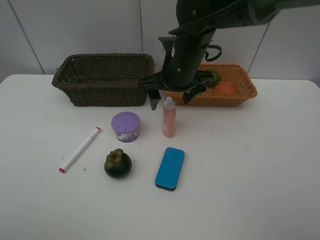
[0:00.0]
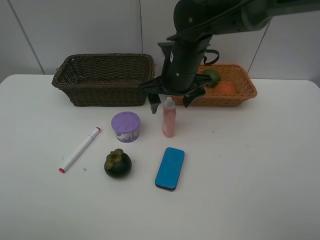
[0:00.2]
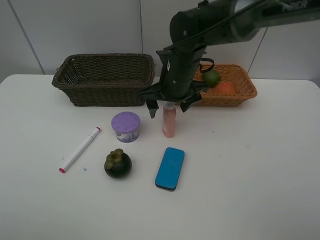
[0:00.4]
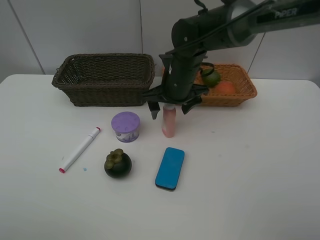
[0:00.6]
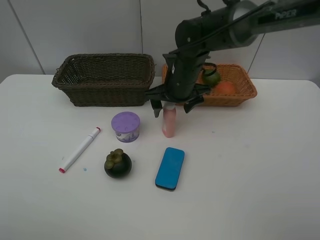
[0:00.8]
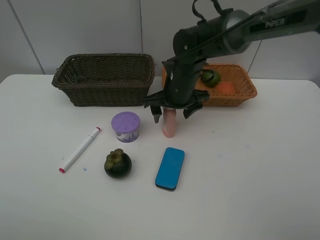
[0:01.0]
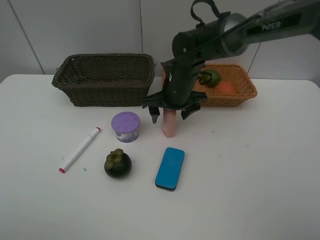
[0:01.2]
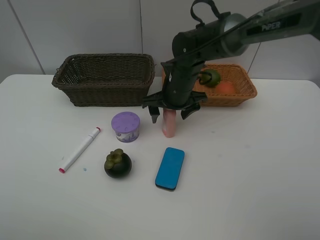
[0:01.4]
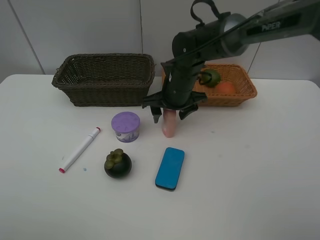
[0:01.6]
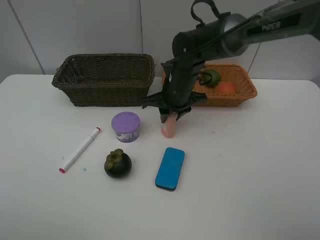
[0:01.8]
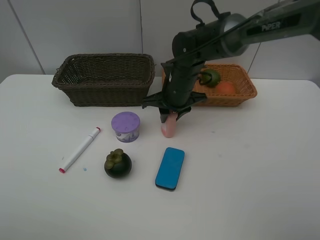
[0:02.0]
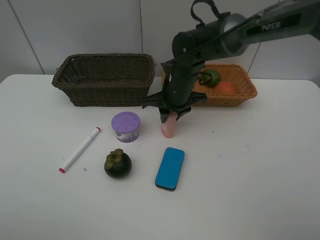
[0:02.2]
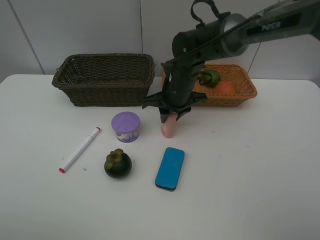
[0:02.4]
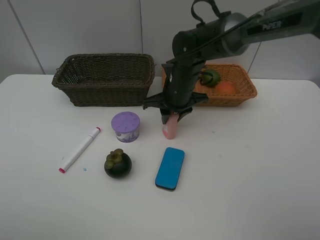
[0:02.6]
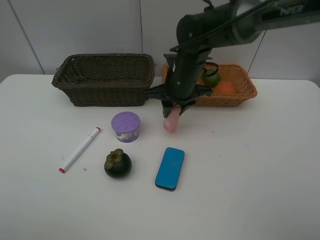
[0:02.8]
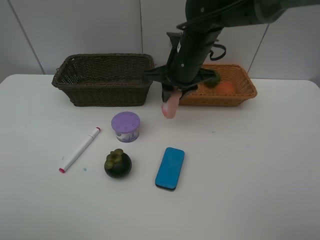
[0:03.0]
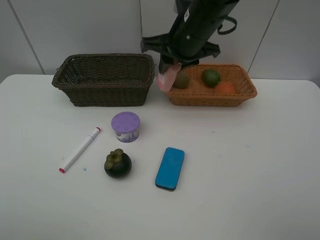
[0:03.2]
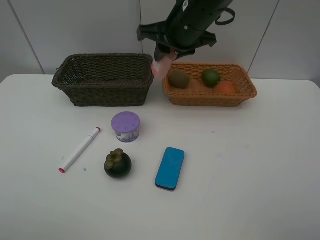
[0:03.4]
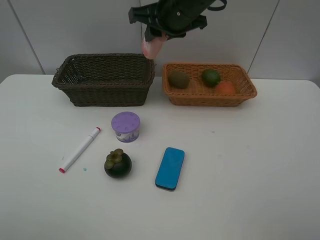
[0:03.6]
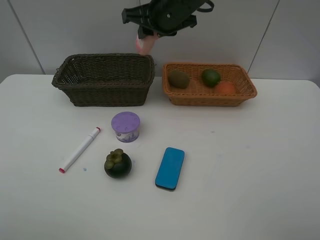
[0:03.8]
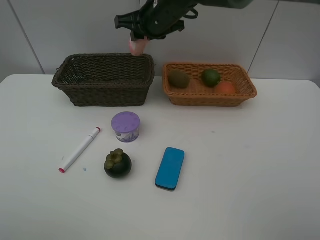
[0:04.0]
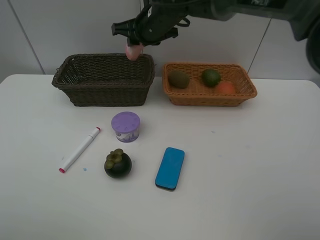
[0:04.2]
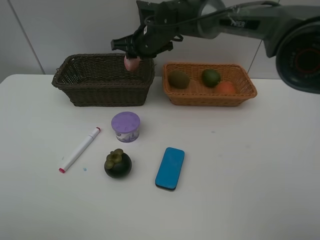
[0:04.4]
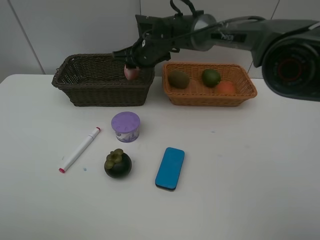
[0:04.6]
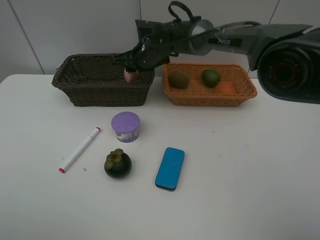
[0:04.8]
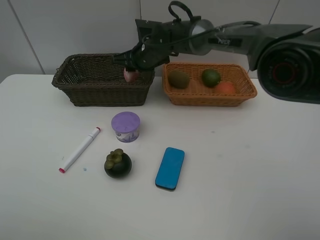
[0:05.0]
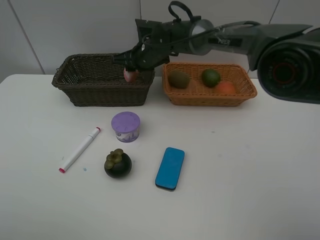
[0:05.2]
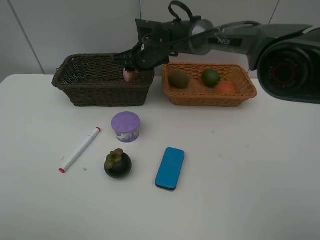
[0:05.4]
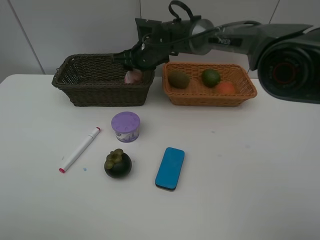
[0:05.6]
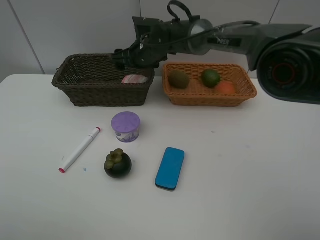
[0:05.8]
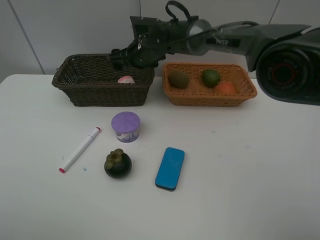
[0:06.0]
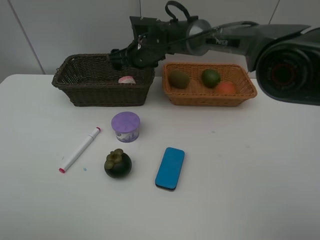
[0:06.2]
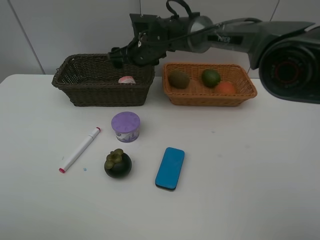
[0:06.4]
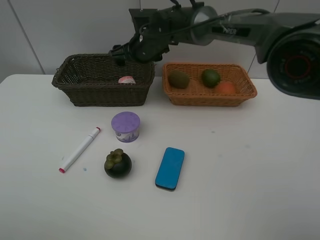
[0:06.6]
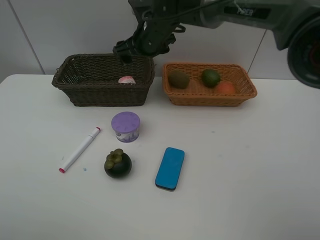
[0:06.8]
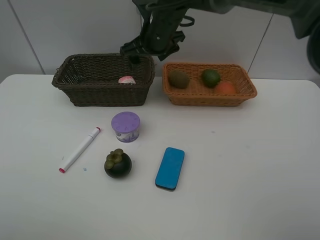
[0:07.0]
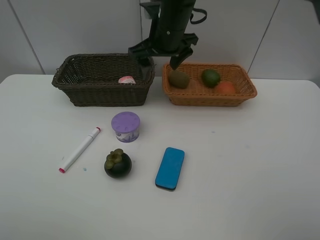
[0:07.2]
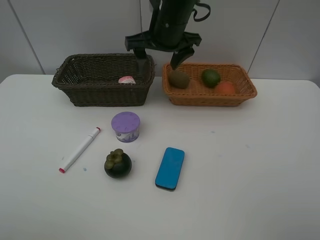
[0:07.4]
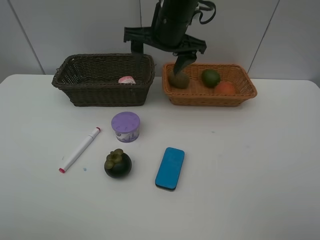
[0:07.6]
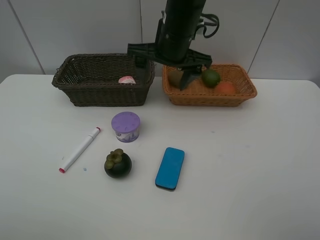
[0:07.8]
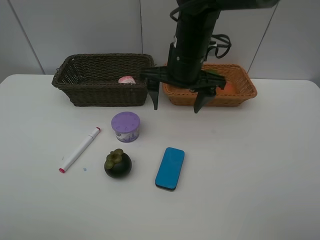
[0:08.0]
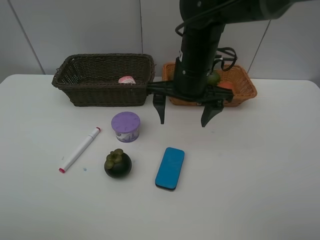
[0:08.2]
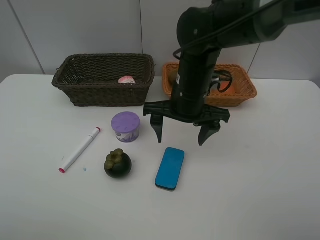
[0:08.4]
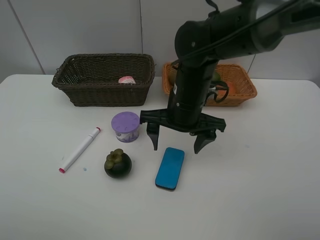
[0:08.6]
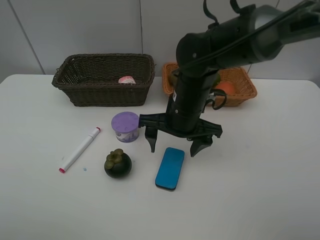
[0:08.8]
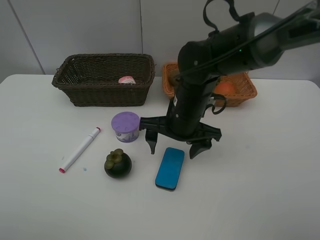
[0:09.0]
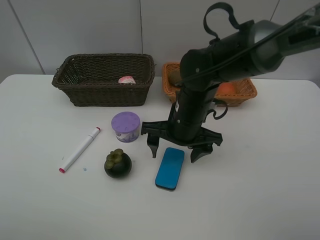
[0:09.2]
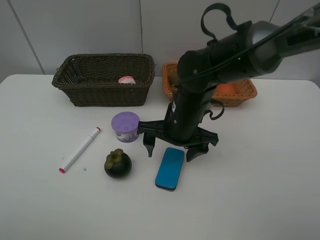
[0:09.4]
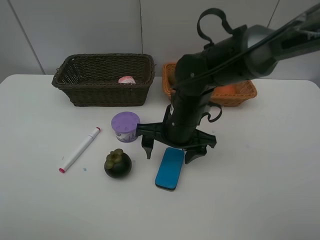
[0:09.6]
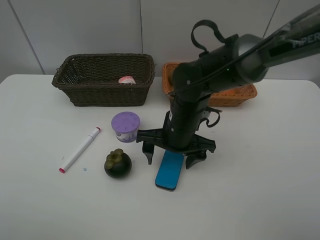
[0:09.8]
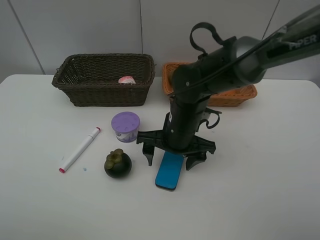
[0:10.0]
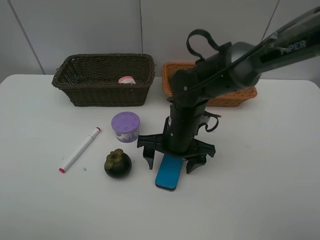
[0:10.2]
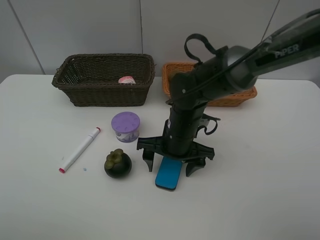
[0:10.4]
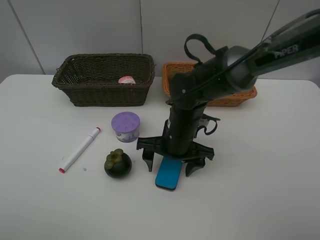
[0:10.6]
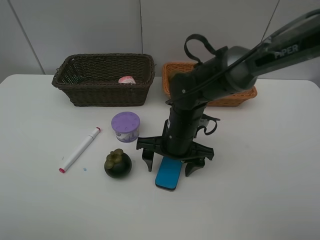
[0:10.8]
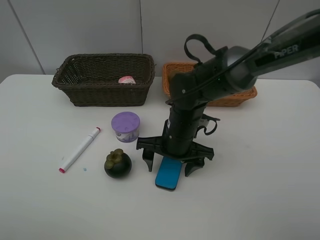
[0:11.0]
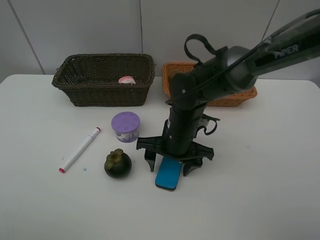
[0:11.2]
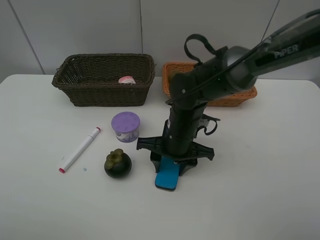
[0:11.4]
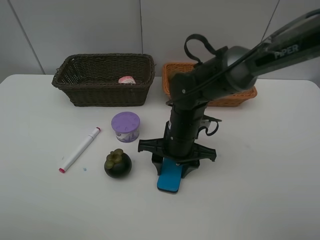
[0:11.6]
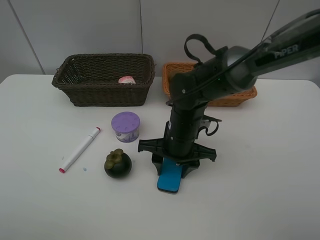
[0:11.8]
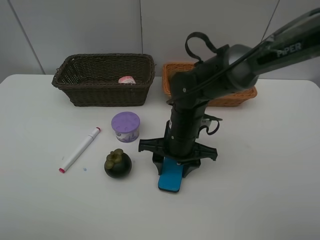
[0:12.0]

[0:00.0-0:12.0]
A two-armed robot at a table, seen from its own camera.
Task of the whole recording: Place multiple objects separately in different baskets.
Step, 0:00.0 to 0:02.8: Pick up the laundry detergent with right gripper.
Step, 0:03.0 to 0:06.2: Place the laundry detergent in the dark basket with right gripper.
0:00.0 to 0:01.6: The right gripper moves downward, roughly 5 cm, and closes up.
0:01.6 to 0:03.0: The right gripper shifts some 10 cm upward, and closes.
0:03.0 to 0:04.4: The right gripper shifts some 15 cm forward and to the left.
0:04.4 to 0:06.0: The right gripper opens.
0:06.0 to 0:07.6: The right gripper goes approximately 15 cm upward, backward and to the right.
0:07.6 to 0:09.0: The right gripper shifts about 15 cm downward and backward.
0:09.0 to 0:10.4: The grippers make only small movements.
0:10.4 to 0:12.0: The right gripper closes.

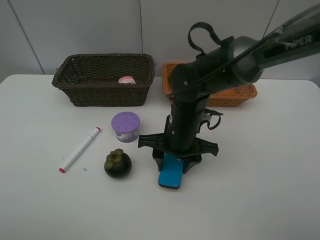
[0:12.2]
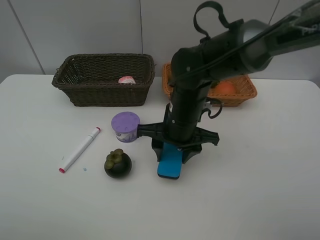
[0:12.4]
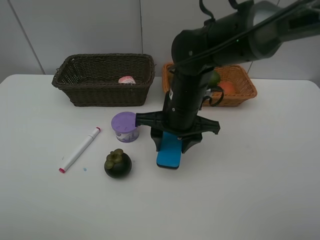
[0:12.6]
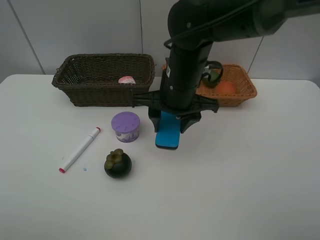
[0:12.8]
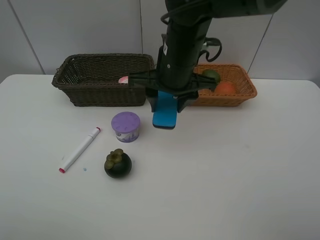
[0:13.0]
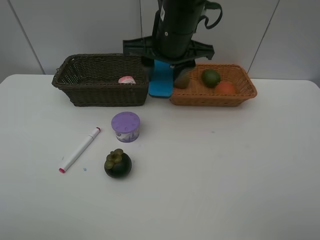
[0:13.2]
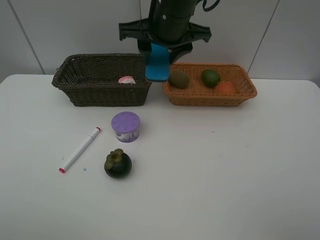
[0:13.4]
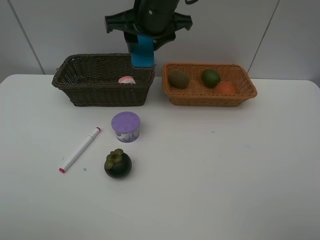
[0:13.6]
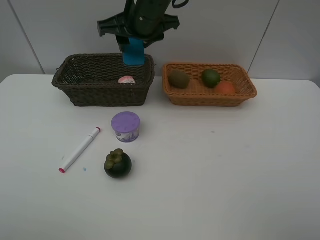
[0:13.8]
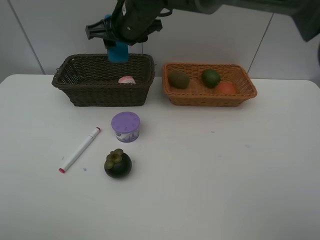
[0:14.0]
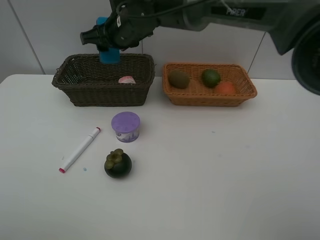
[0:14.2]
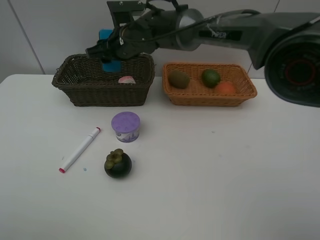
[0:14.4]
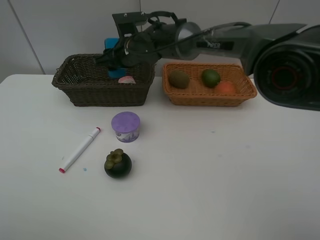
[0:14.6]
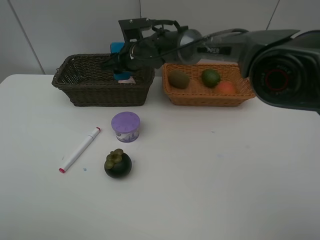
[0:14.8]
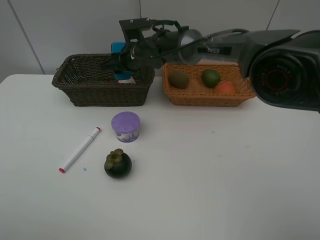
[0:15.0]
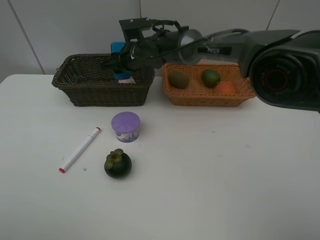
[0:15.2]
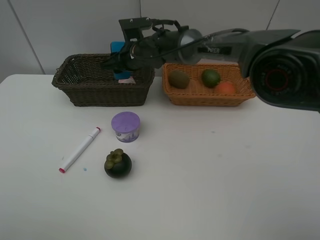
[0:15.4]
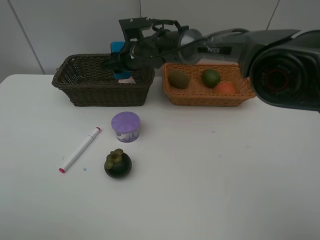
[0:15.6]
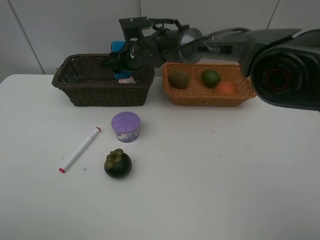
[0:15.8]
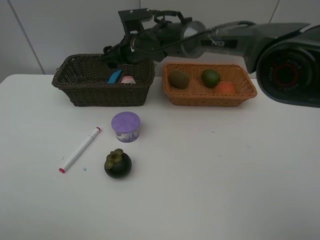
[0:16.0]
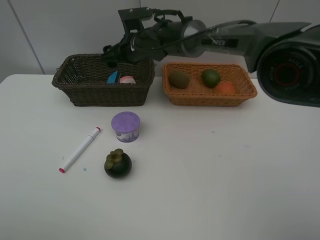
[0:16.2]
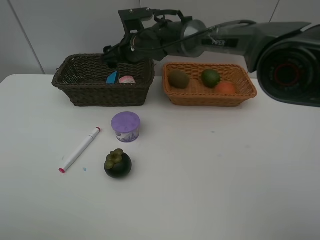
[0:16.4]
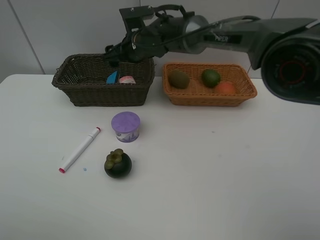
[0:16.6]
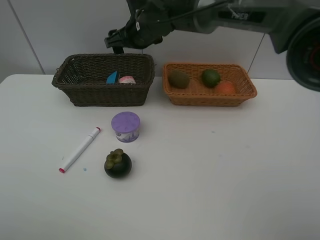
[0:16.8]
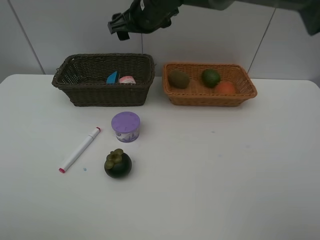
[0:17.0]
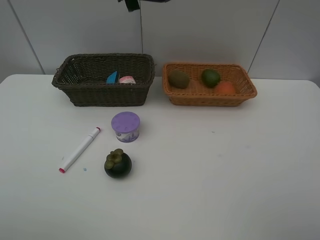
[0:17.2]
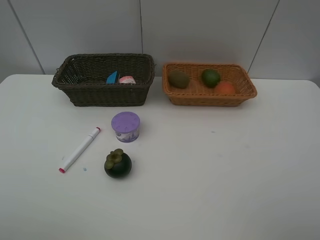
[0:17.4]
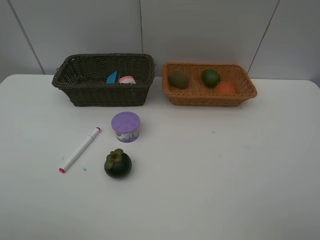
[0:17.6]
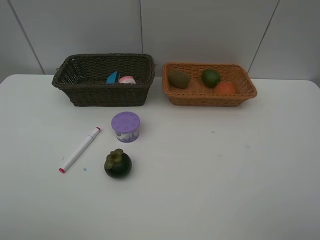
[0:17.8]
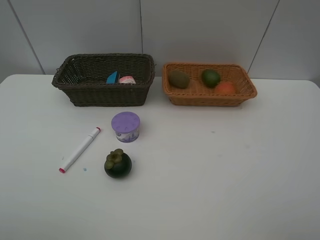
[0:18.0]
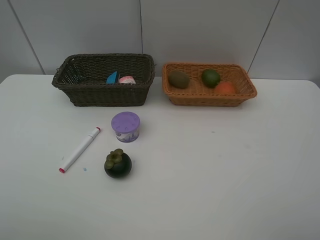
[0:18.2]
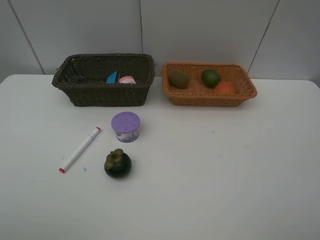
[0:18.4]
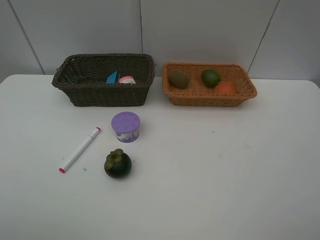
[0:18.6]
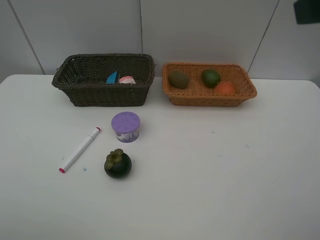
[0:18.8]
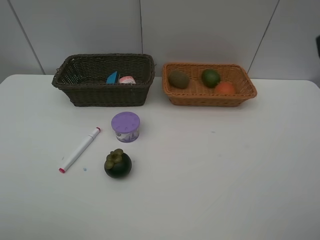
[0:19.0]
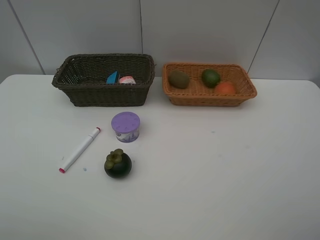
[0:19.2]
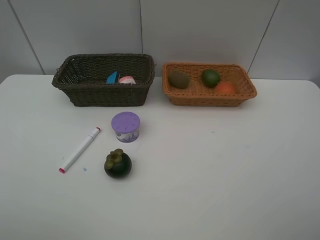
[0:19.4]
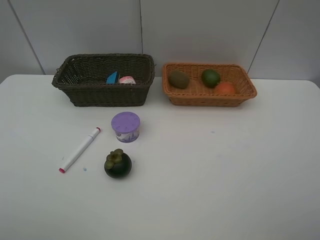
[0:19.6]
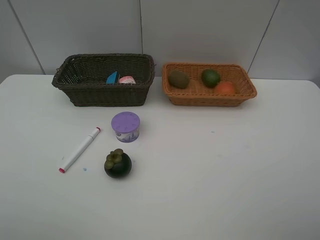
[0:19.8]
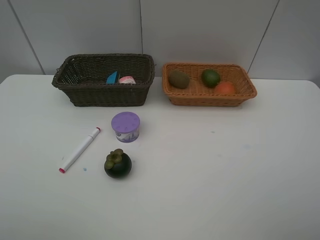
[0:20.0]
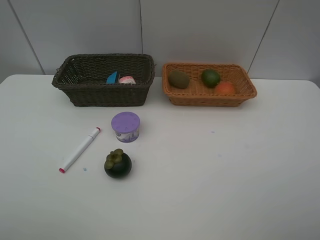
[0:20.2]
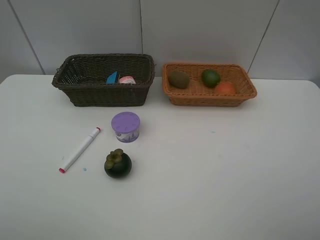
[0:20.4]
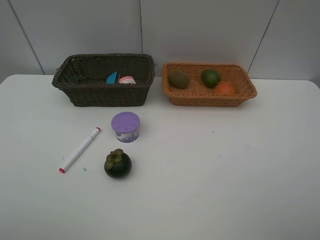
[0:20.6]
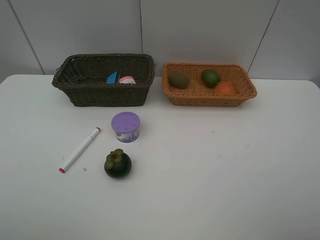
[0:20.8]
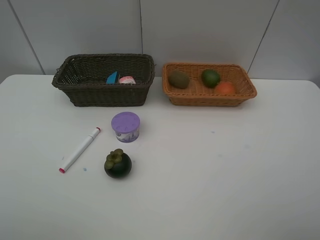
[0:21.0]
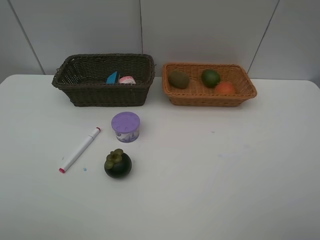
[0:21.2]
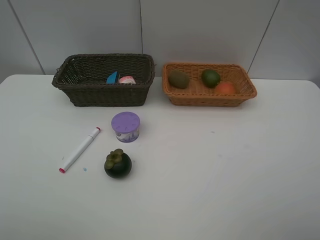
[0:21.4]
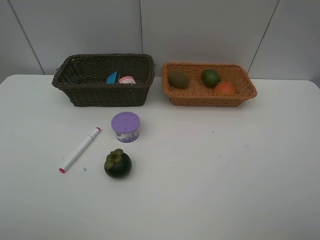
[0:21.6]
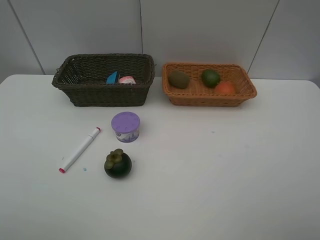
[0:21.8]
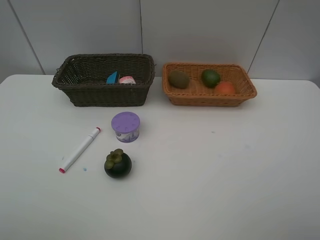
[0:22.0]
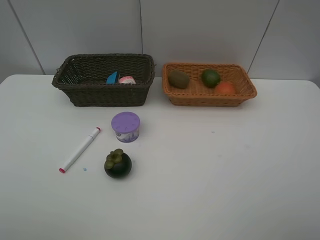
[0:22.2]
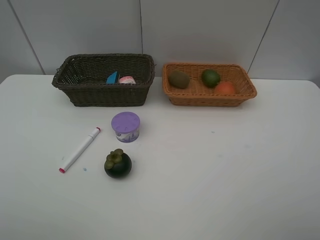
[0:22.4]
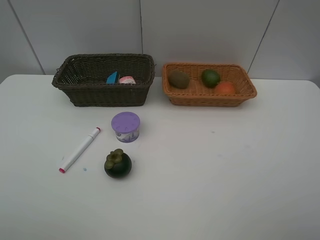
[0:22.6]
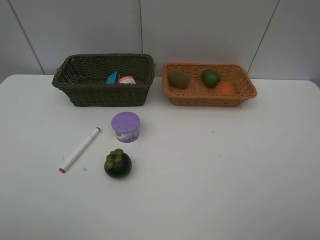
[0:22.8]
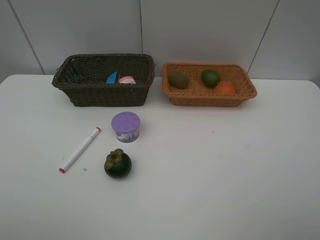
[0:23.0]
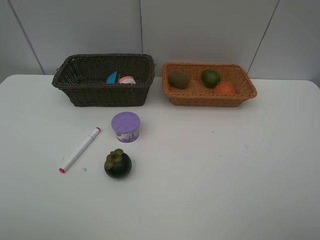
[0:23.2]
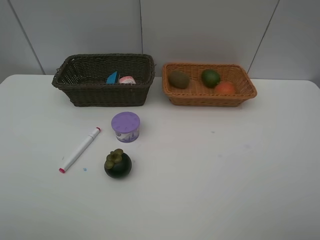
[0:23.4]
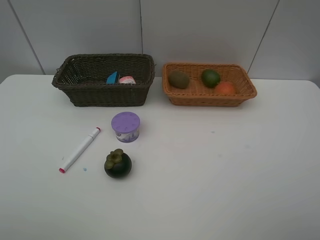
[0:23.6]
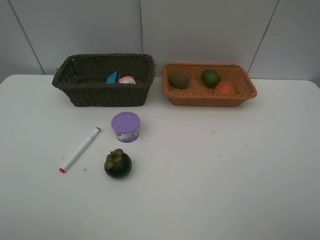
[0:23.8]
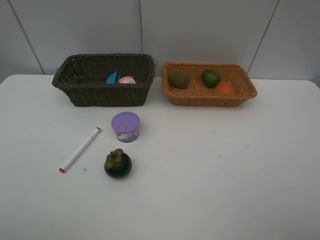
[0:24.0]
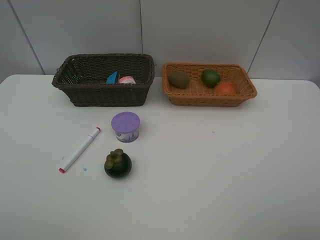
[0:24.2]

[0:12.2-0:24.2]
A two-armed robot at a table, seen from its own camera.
Task of the whole recording: Place multiple objects separately in different baskets.
Step, 0:12.4 to 0:16.6: Place the blackboard eraser in the dark basket with right gripper.
0:12.2 to 0:13.8: The right gripper is displaced upward, forward and to the left by roughly 20 cm.
0:13.8 to 0:15.2: The right gripper goes about 15 cm downward and forward.
0:15.2 to 0:16.6: The right gripper opens.
0:16.6 to 0:18.2: The right gripper shifts some 40 cm upward, backward and to the right.
